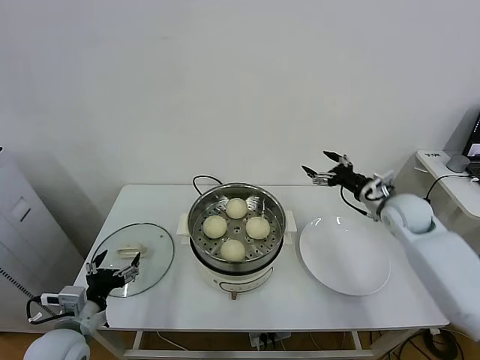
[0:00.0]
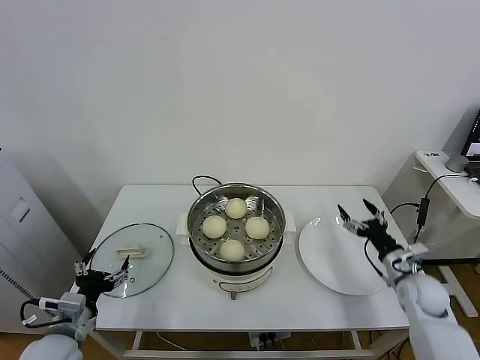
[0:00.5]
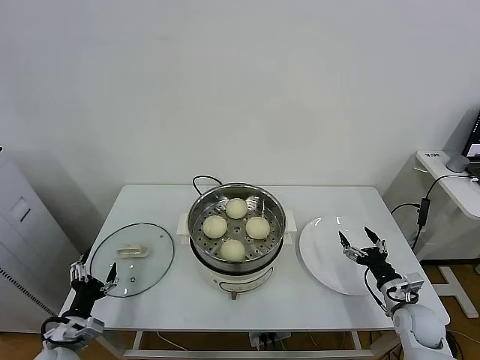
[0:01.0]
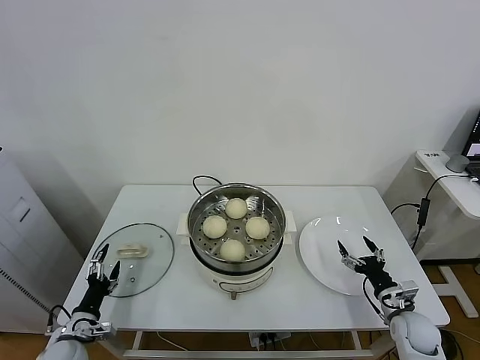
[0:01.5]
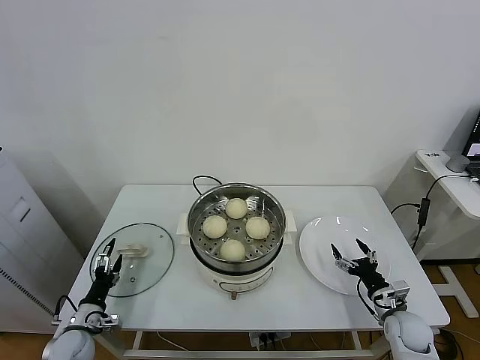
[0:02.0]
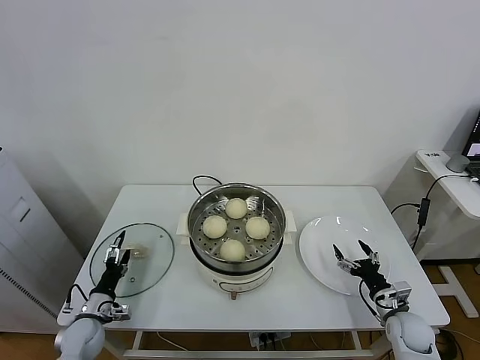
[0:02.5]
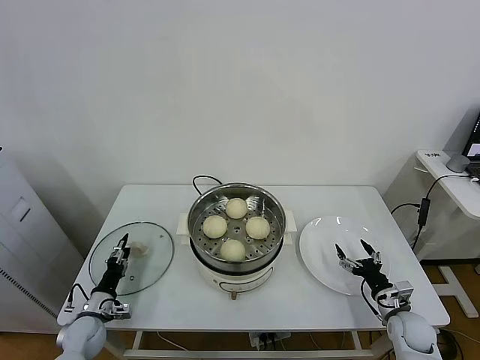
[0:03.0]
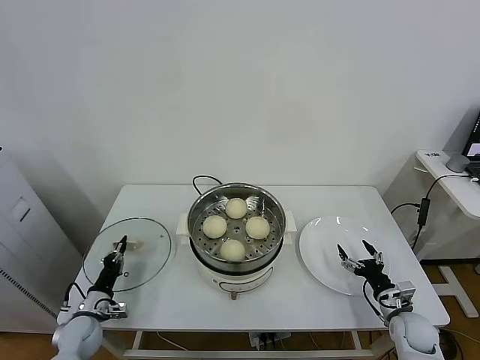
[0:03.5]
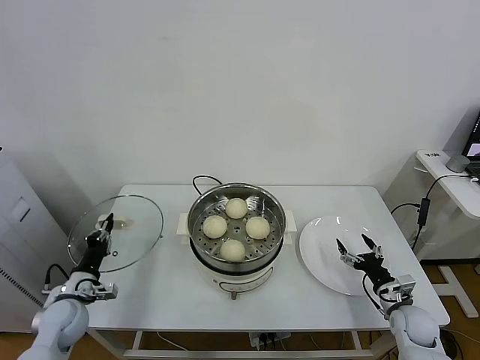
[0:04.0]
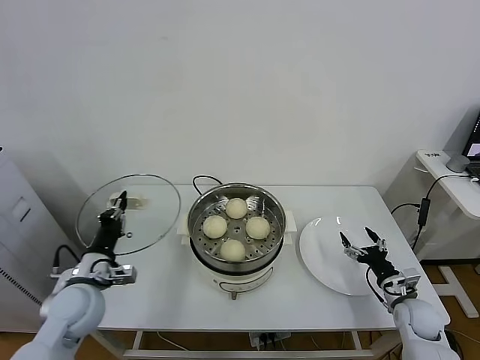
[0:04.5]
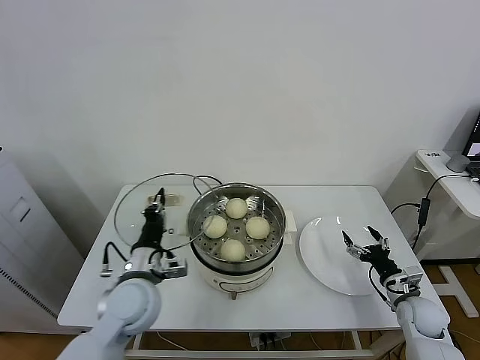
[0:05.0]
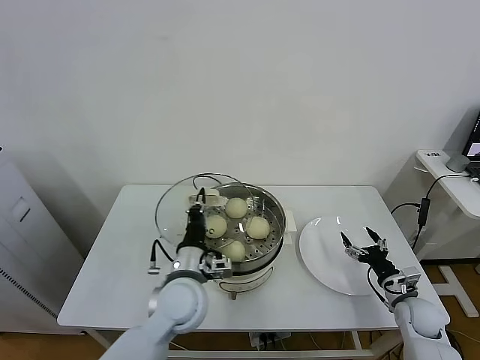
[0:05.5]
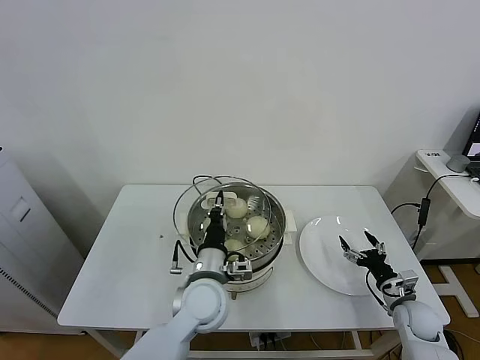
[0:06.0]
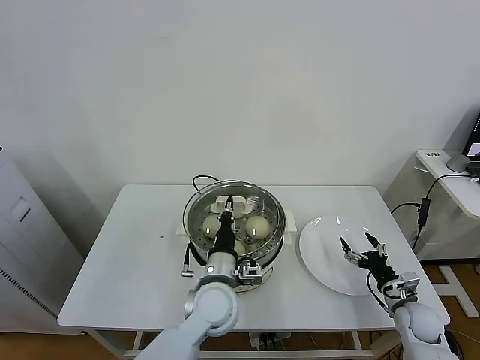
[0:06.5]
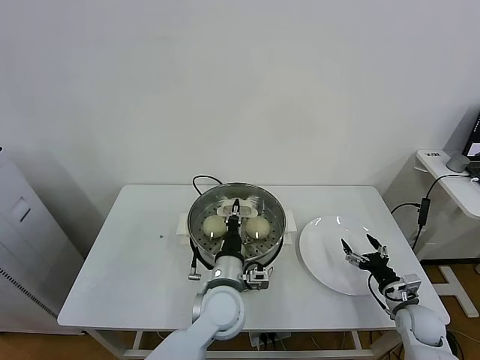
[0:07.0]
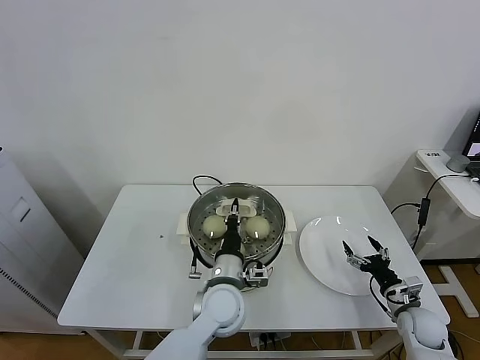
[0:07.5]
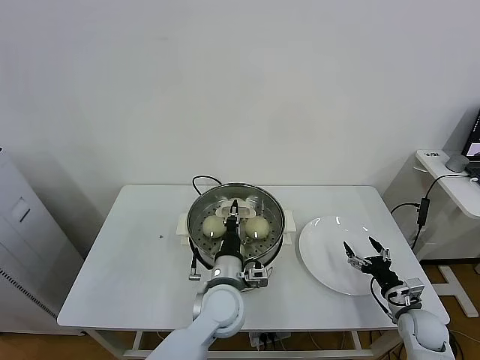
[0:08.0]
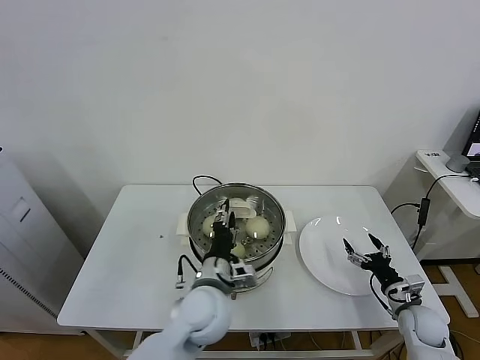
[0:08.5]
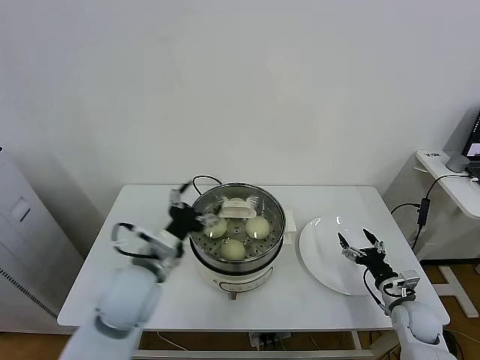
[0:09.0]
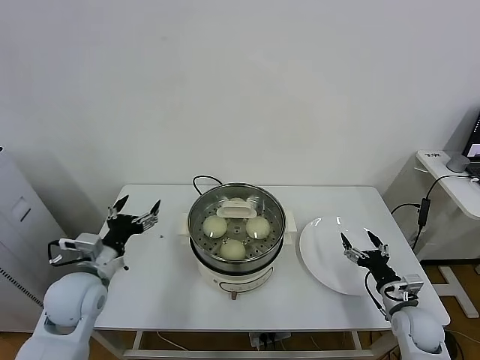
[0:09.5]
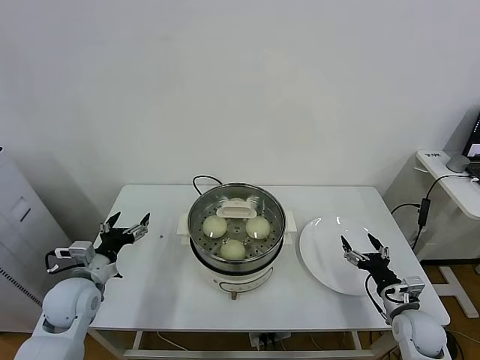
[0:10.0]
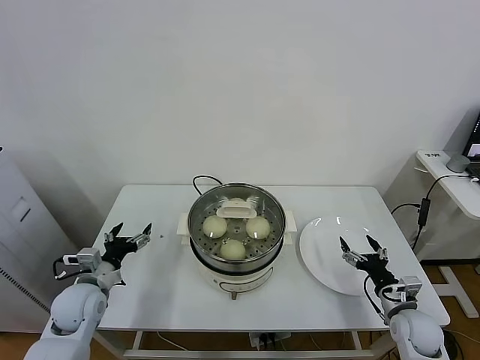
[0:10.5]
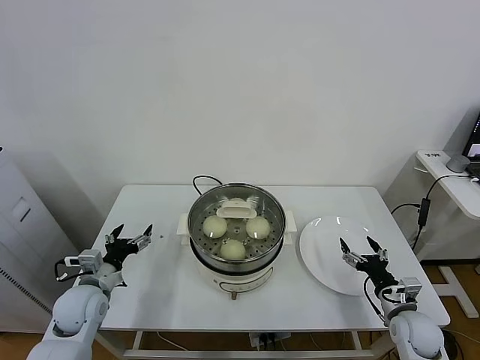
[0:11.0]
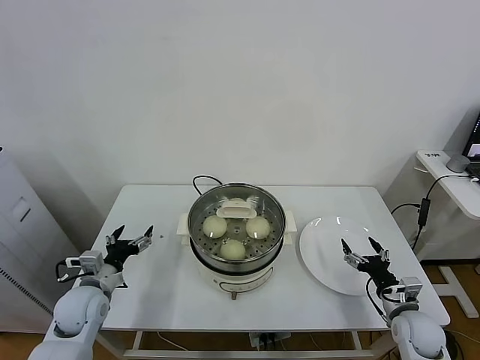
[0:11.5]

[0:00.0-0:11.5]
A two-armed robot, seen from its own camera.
Task of the whole recording: take steamed baozi put them in steamer.
Step, 0:00.0 to 0:03.5: Grasp the pot lid with left gripper.
Step, 0:04.0 to 0:08.5: Place the pot lid on the steamer with left gripper.
0:00.0 to 0:02.0: The right gripper is displaced downward and backward by about 30 cm. The left gripper shifts roughly 20 cm downward and to the left.
0:02.0 to 0:04.0: The left gripper heads upward, covering about 10 cm, and closes up.
0:04.0 to 0:06.0: The left gripper heads to the right, covering about 30 cm.
0:06.0 to 0:07.5: There are only small adjustments of the grippers.
0:07.5 to 0:09.5: The left gripper heads to the left, covering roughly 25 cm, and opens up.
0:09.5 to 0:11.5: The left gripper goes approximately 10 cm downward.

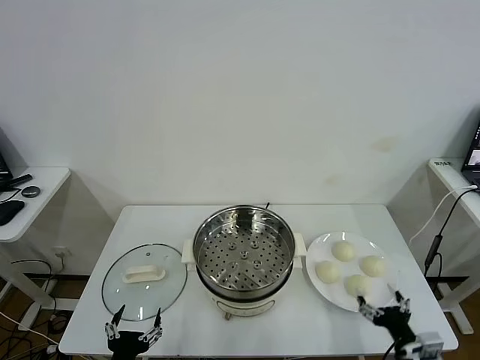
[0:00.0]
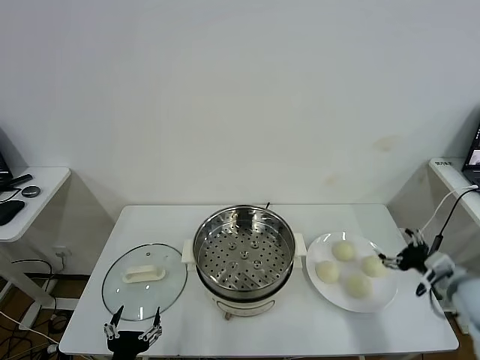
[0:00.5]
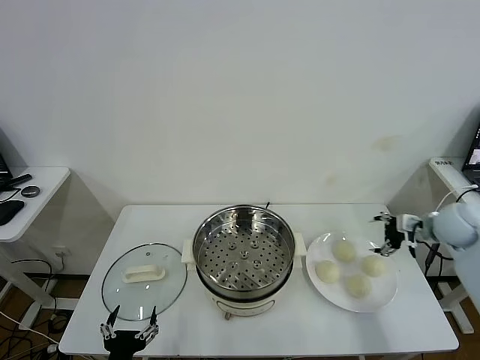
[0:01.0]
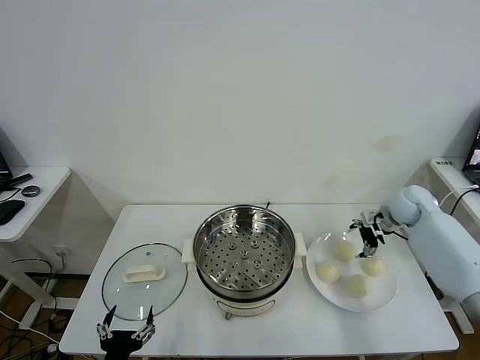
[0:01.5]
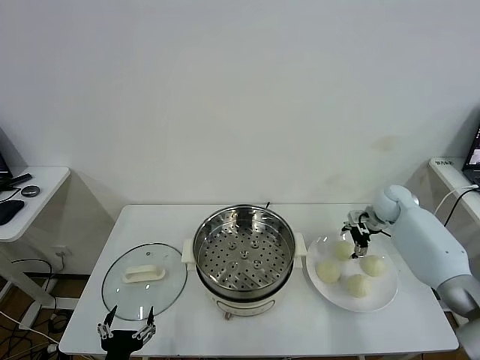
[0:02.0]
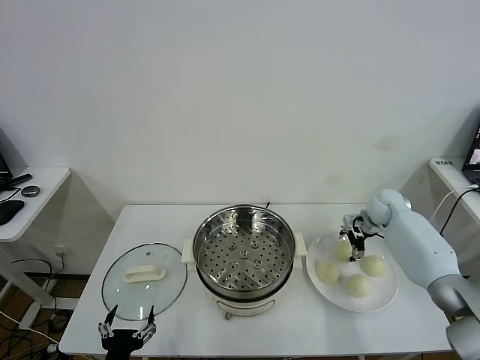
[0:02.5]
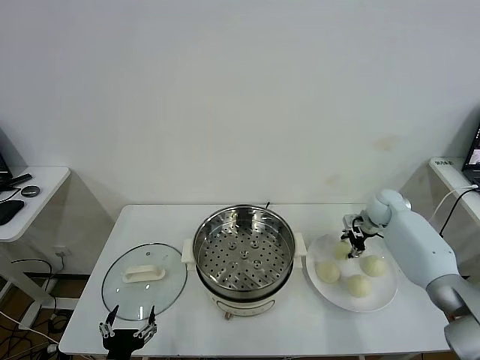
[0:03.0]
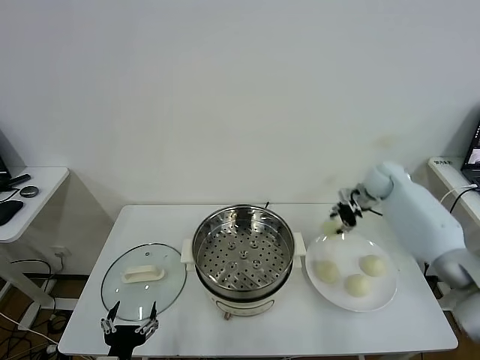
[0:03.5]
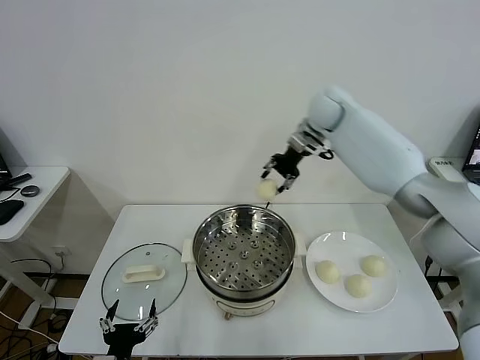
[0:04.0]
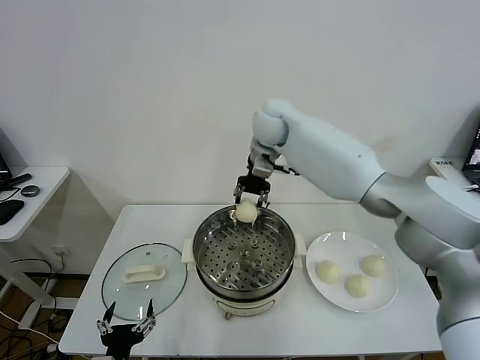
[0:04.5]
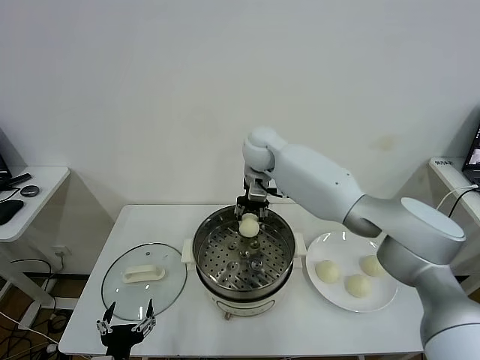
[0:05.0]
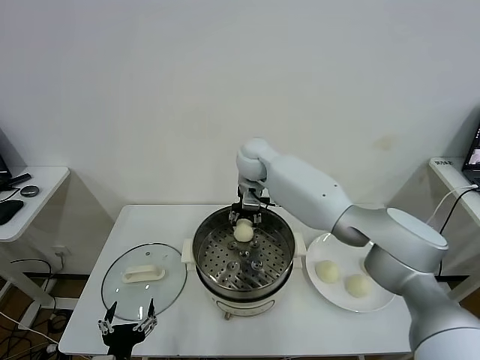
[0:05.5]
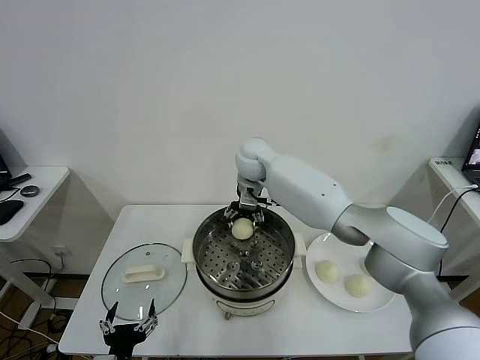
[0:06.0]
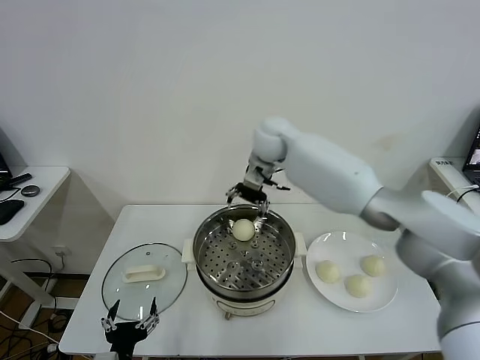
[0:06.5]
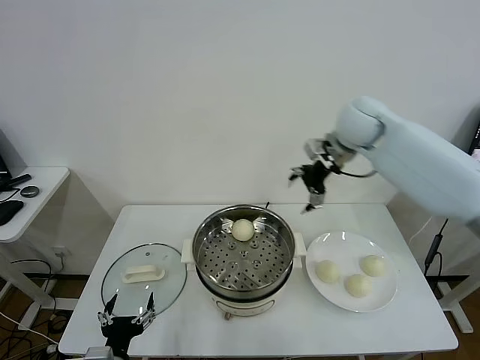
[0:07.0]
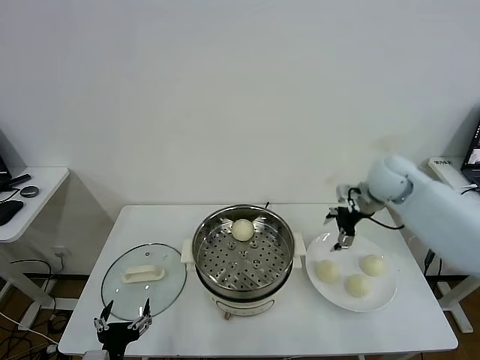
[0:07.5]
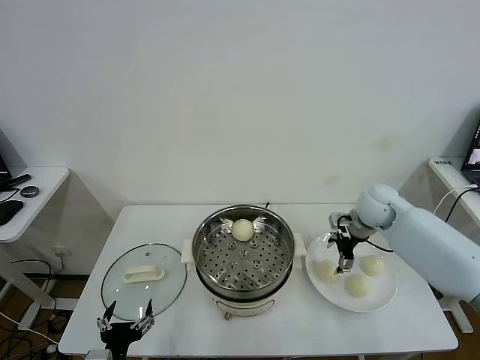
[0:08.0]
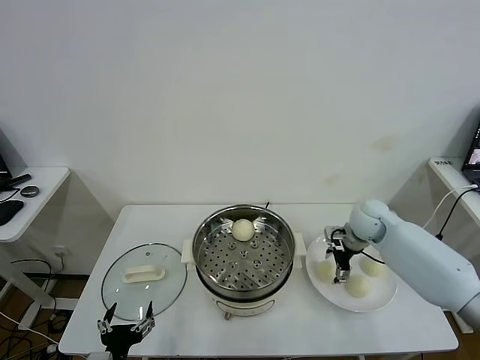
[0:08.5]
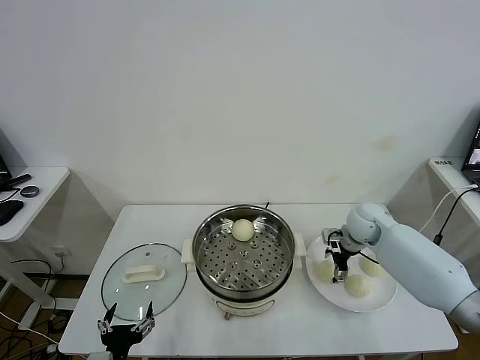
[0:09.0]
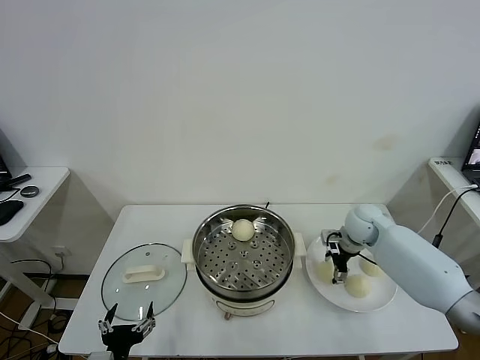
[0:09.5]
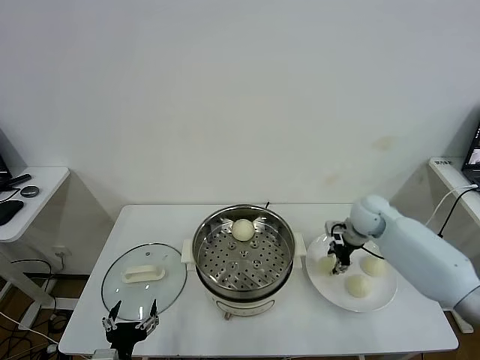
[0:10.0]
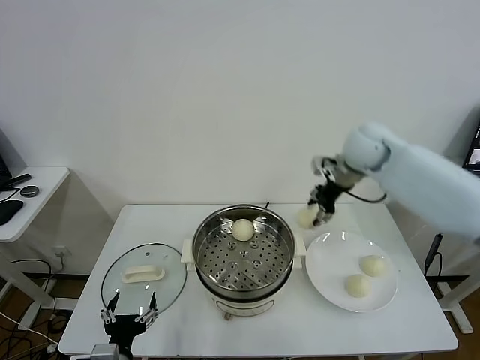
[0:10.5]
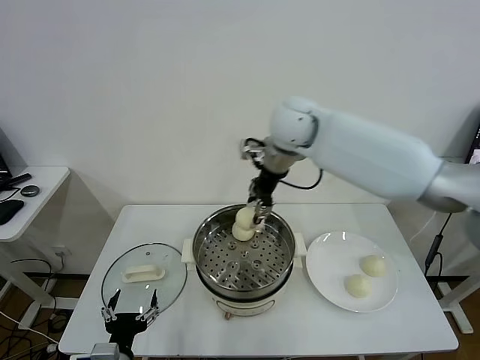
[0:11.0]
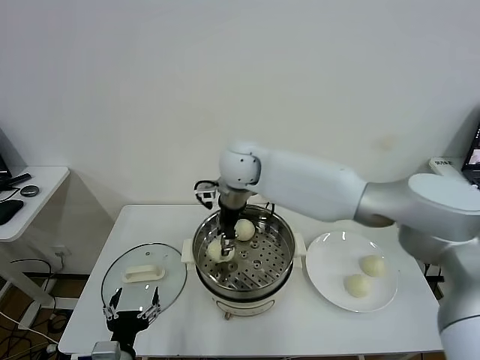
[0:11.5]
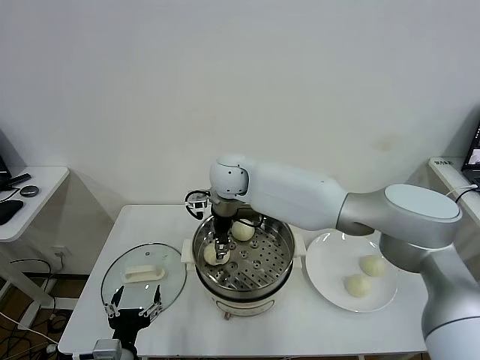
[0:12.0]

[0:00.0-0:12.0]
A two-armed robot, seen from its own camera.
Task of the whole recording: take steamed baozi put them in steamer.
Step, 0:00.0 to 0:02.5: Grasp the baozi in the plate with right gripper.
Step, 0:03.0 to 0:06.0: Place the baozi on the steamer with right gripper.
Step, 0:06.5 to 0:09.5: Grasp the baozi in the plate with right gripper.
0:02.0 to 0:04.0: The right gripper is displaced upward and to the left by approximately 30 cm, and closes.
0:04.0 to 0:06.0: The right gripper travels to the left and downward by some 20 cm, and opens up.
0:06.0 to 0:08.0: The right gripper heads to the right, covering some 30 cm.
0:08.0 to 0:10.0: The right gripper closes.
0:10.0 to 0:12.0: The right gripper goes roughly 35 cm to the left.

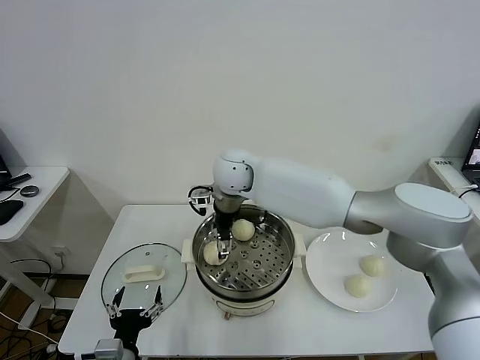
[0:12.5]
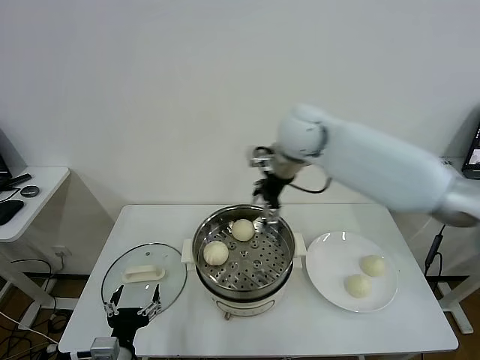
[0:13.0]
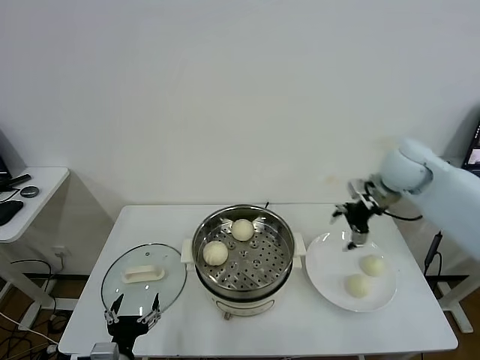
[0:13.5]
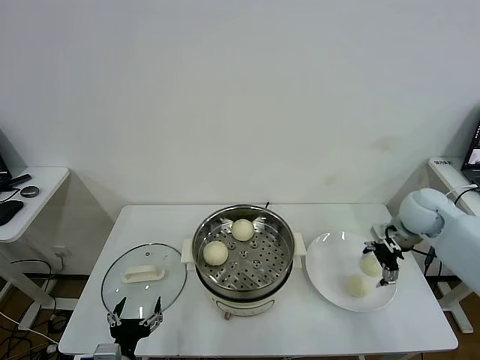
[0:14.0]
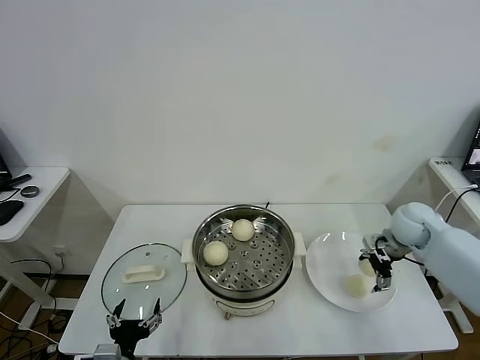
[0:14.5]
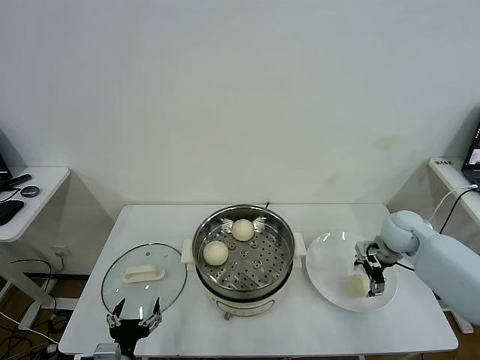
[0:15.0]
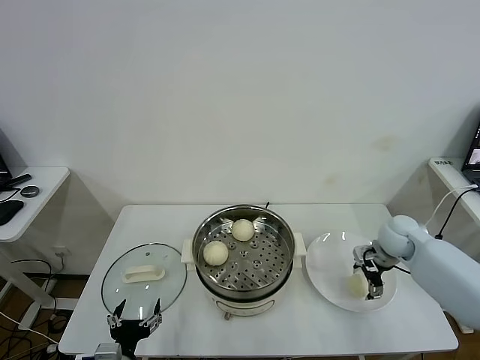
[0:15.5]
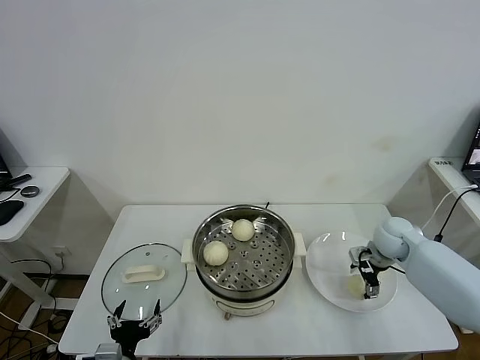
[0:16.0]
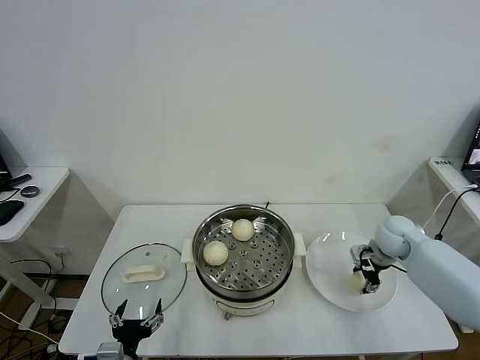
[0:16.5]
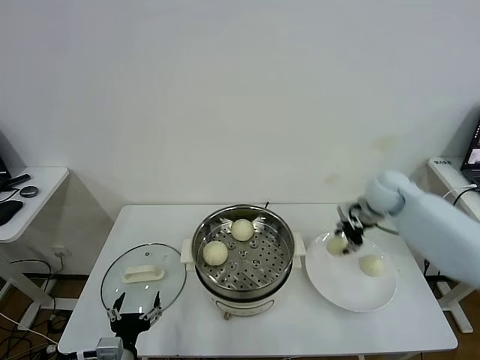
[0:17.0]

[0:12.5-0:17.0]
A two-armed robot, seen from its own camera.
Task of the whole recording: take steamed baozi put them in steamer.
Step, 0:13.0 to 0:16.0: Grasp the baozi in the plate with right gripper.
0:12.5 to 0:14.5: The right gripper moves to the right, about 40 cm.
0:14.5 to 0:17.0: The right gripper goes some 10 cm to the left, upward and forward, and closes its fingers.
